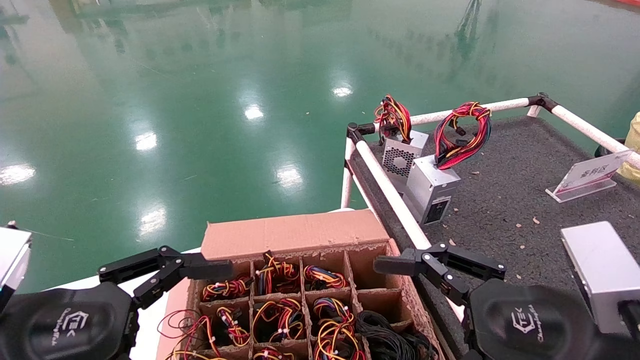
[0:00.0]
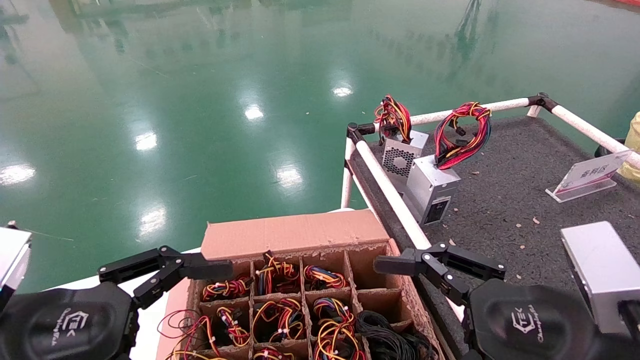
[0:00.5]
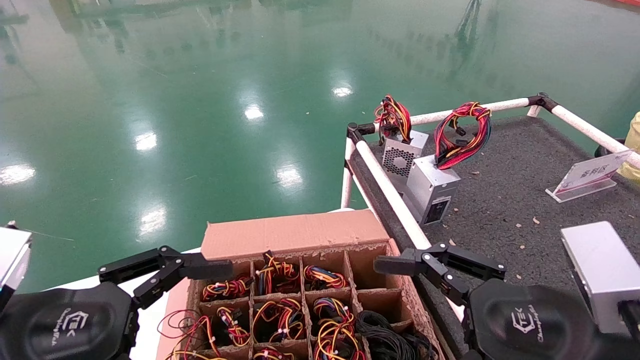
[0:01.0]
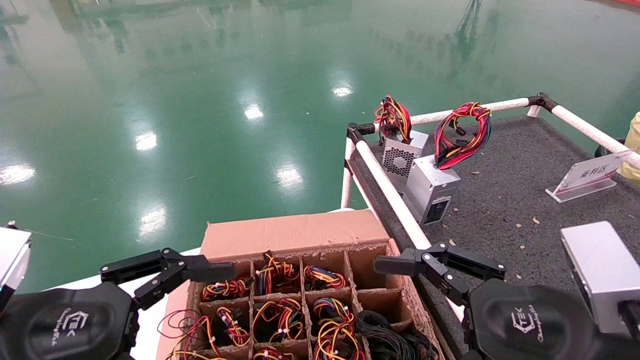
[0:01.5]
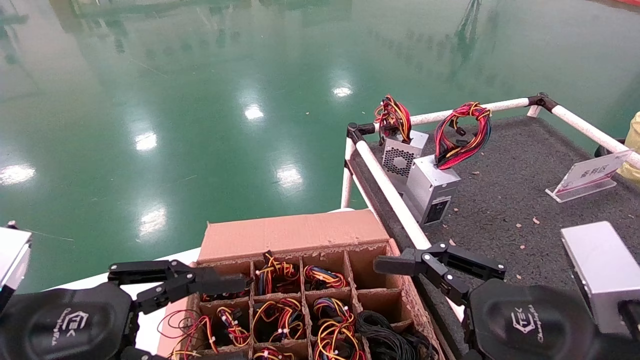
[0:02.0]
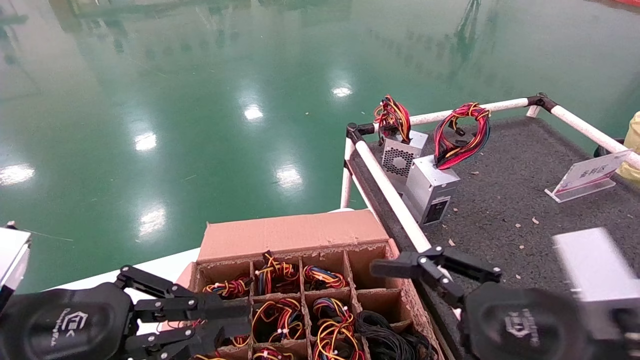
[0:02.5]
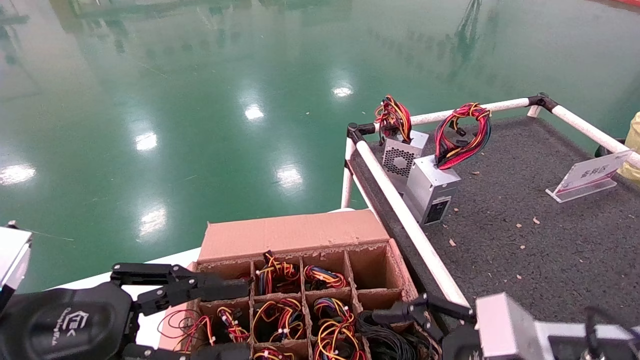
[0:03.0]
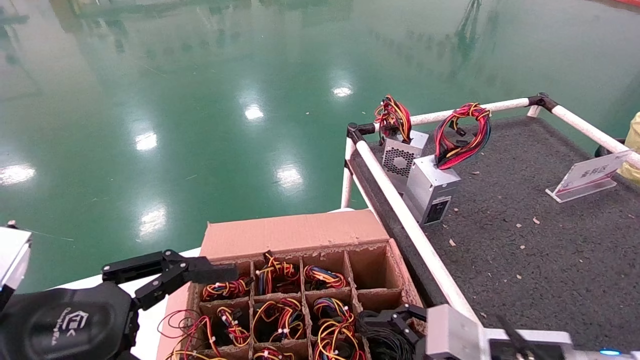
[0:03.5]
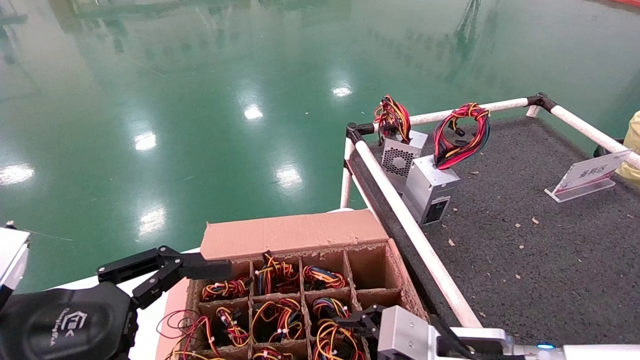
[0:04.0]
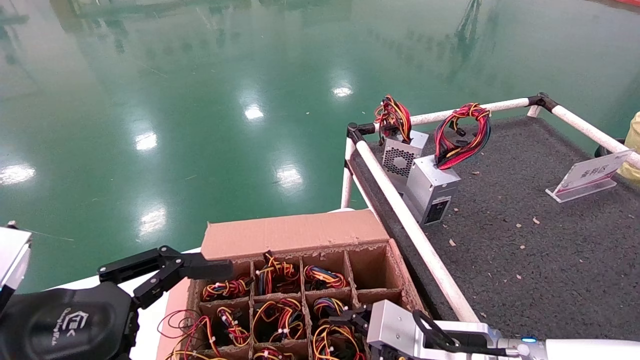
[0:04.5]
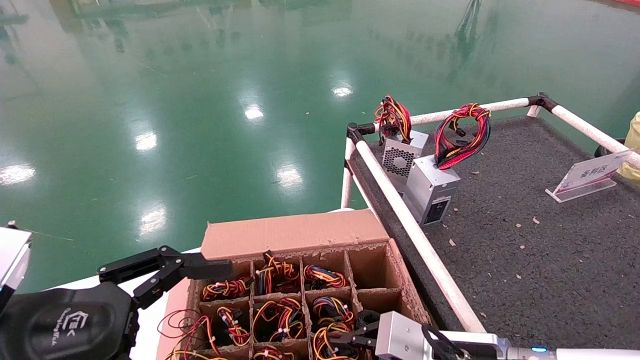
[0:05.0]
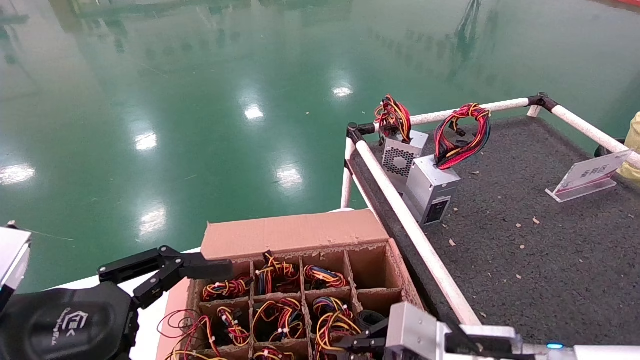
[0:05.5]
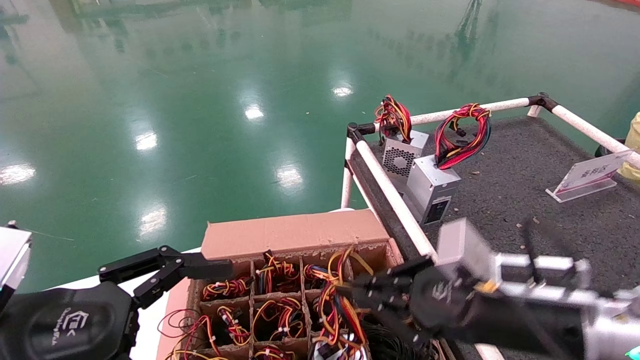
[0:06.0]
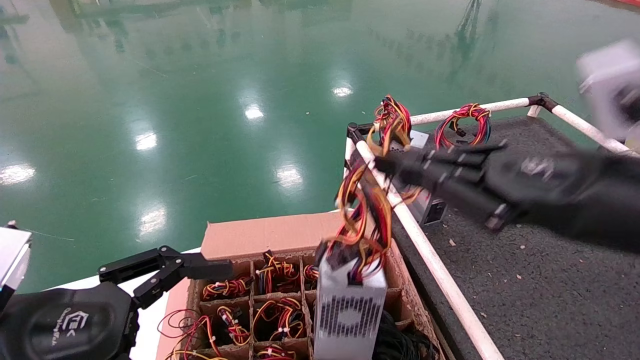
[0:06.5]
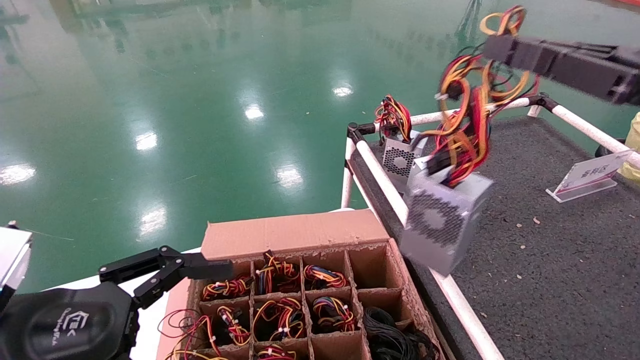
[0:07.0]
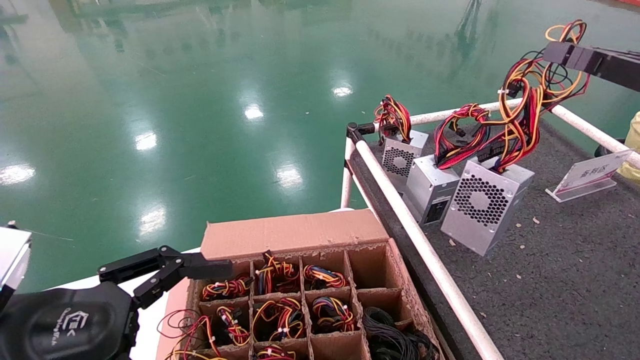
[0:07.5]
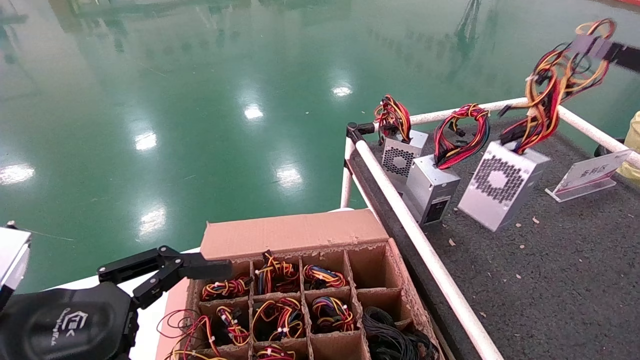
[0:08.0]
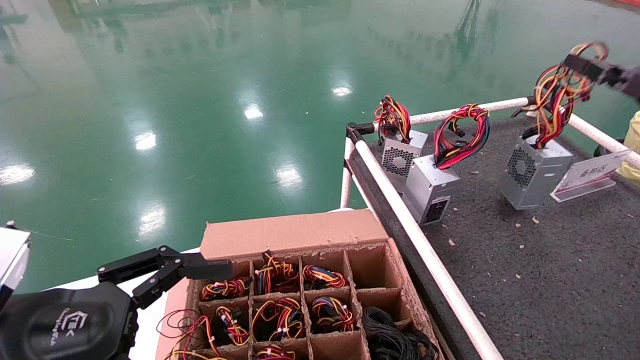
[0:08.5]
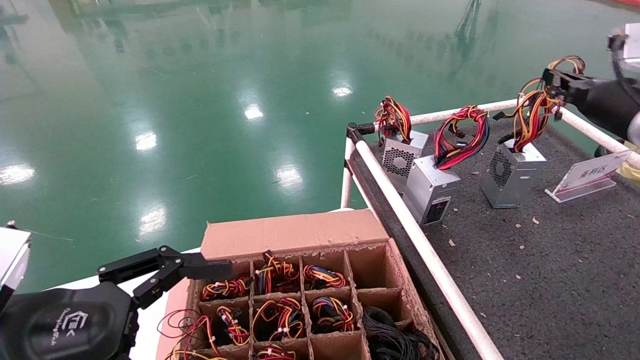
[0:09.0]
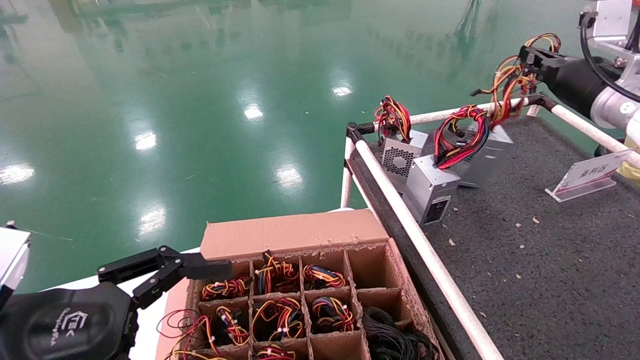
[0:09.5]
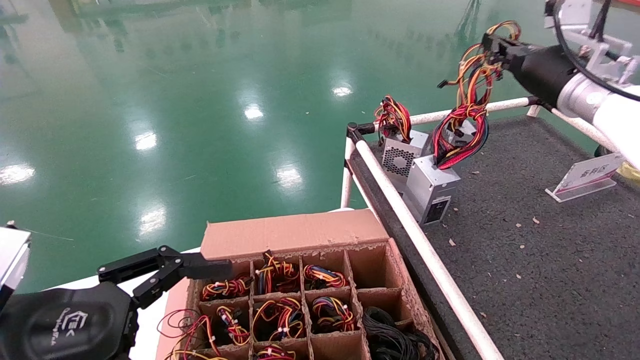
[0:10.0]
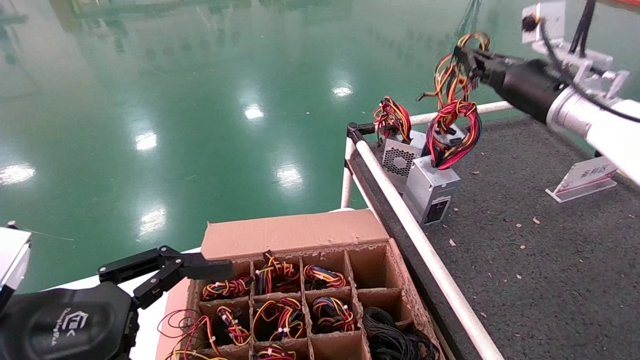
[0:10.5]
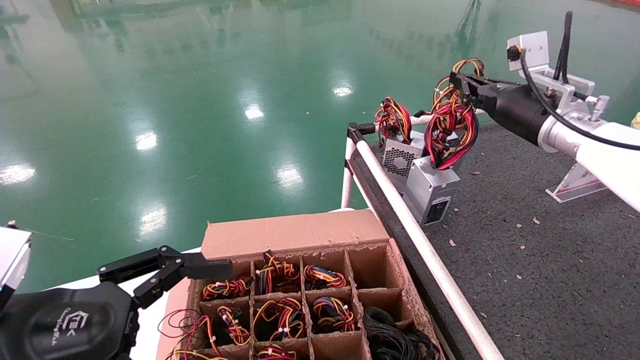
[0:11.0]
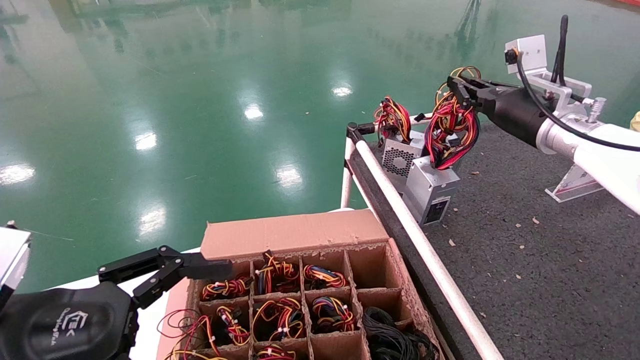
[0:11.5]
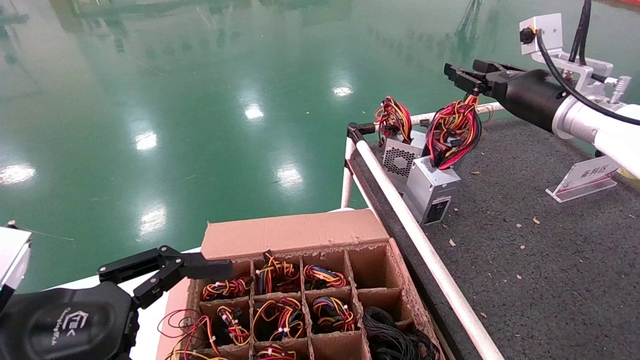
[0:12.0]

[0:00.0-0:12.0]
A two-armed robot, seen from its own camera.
Step, 0:02.5 to 0:06.0: Grab and lift the power supply from the large box.
0:00.0 to 0:02.0: Both grippers stay about where they are.
0:02.0 to 0:04.0: The left gripper closes up, while the right gripper shifts roughly 5 cm downward.
0:04.0 to 0:06.0: The right gripper travels forward, downward and to the left by roughly 10 cm, and closes. Meanwhile the left gripper opens its fingers.
0:06.0 to 0:08.0: The right gripper shifts about 30 cm upward and to the right.
0:08.0 to 0:10.0: The right gripper moves forward and to the right, some 25 cm.
0:10.0 to 0:12.0: The right gripper shifts about 10 cm to the left.

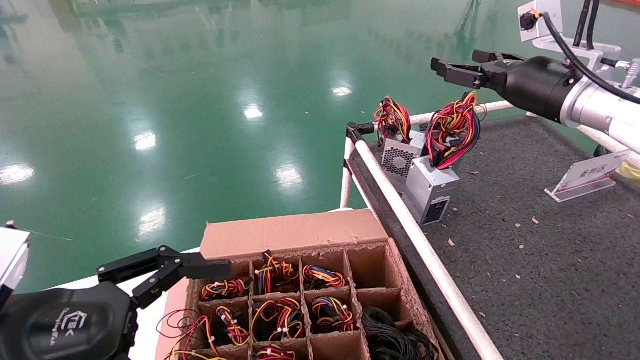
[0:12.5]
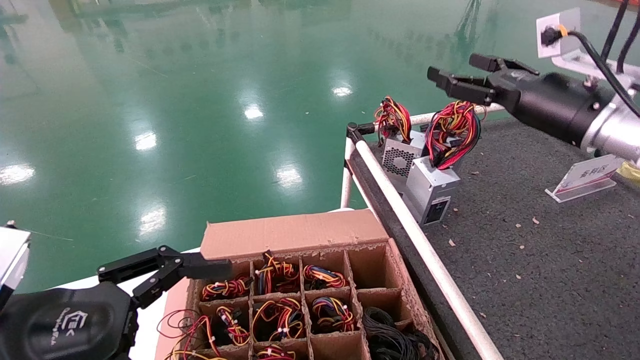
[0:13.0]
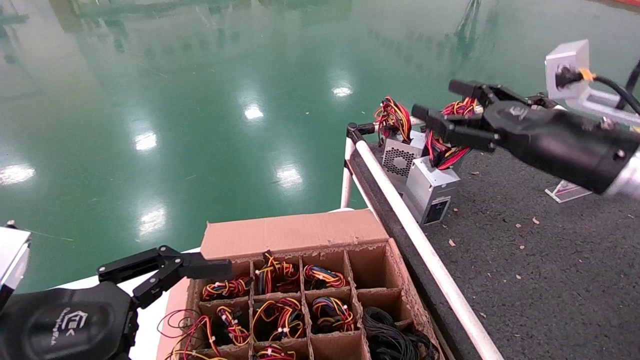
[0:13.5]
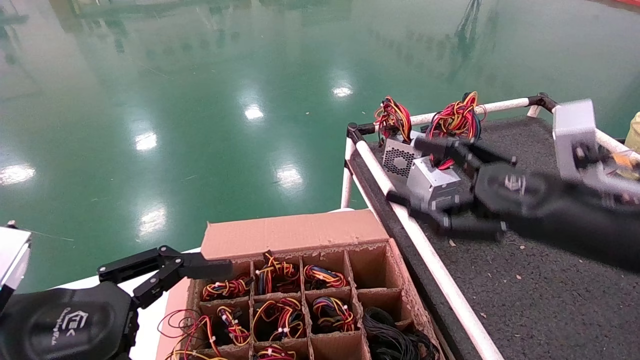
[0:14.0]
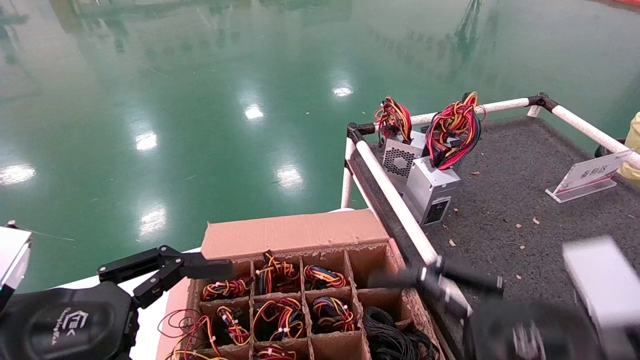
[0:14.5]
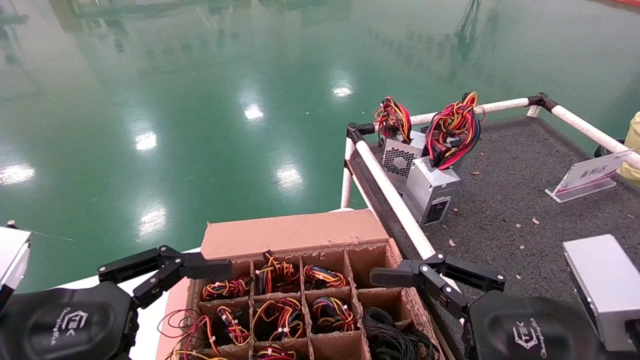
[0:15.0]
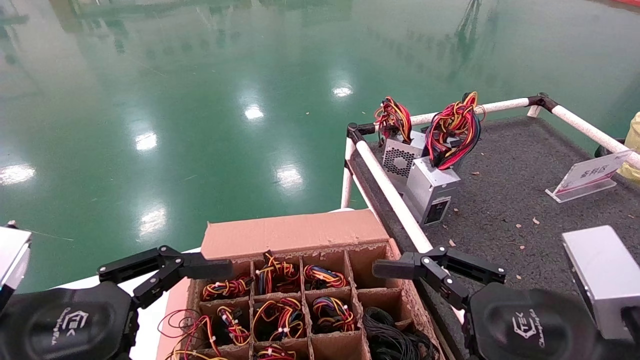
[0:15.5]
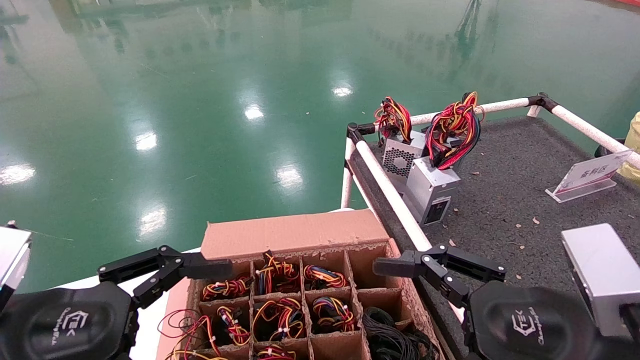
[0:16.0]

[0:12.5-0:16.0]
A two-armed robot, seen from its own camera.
0:12.5 to 0:14.5: The right gripper heads backward, covering roughly 10 cm, and opens up.
0:14.5 to 0:16.0: The right gripper goes roughly 20 cm backward, downward and to the left.
